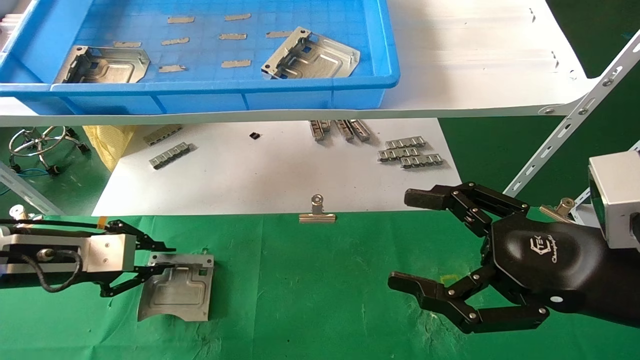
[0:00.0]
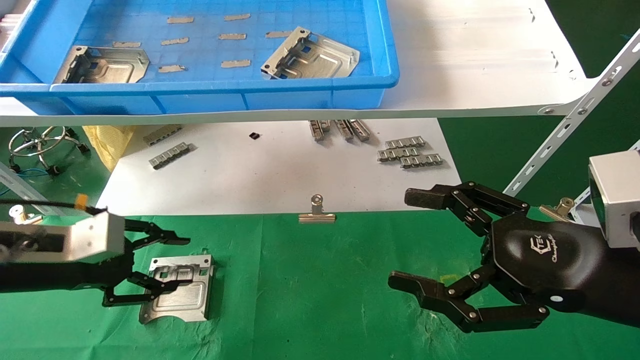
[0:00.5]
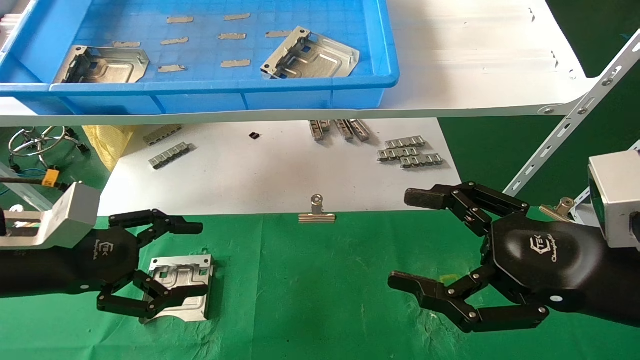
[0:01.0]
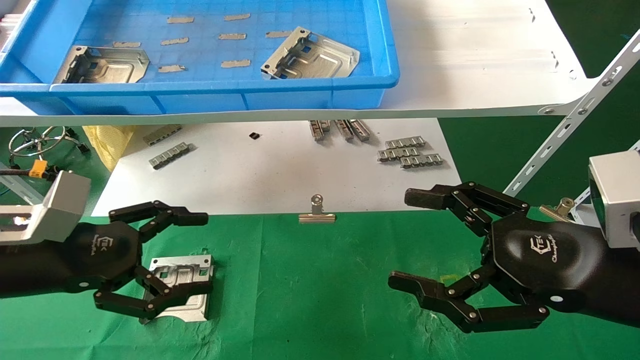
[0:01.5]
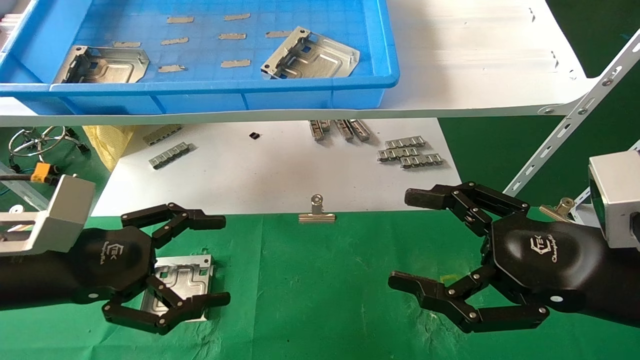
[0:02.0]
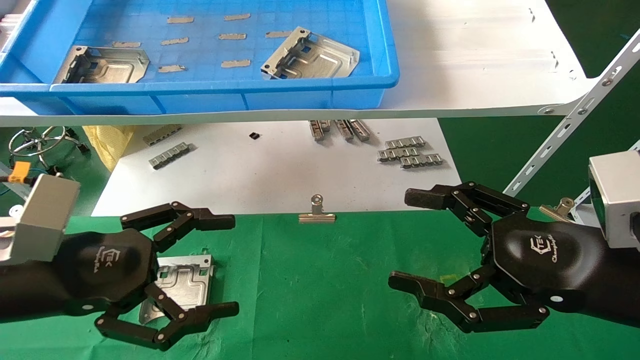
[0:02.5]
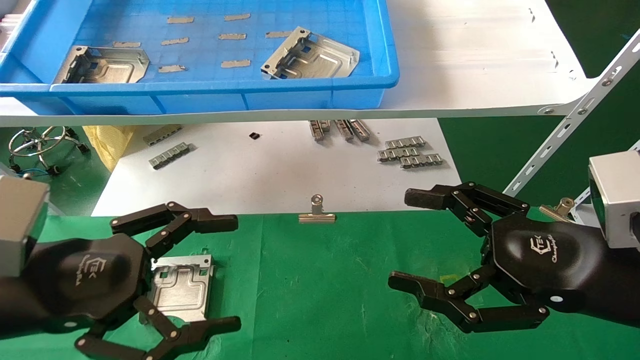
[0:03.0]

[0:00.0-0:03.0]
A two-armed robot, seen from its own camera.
Task of the whole recording: use the mechanical arm to pick up the parts and place them on the table.
0:00.0 to 0:01.5: The left gripper heads backward, covering roughly 5 cm, and opens.
0:01.5 to 0:03.0: The left gripper is displaced backward by some 5 cm.

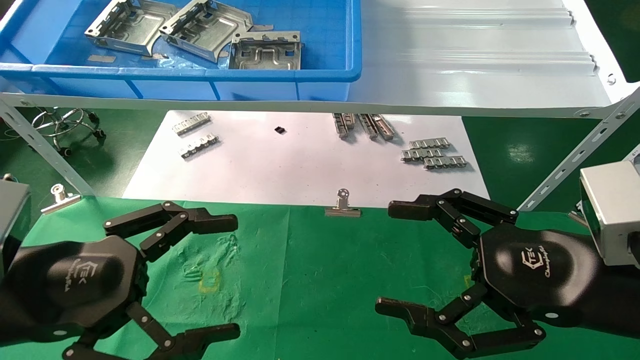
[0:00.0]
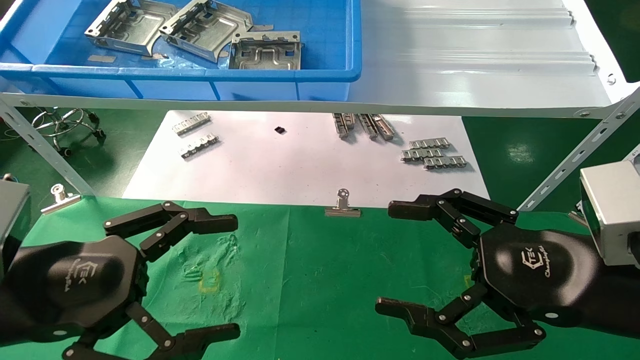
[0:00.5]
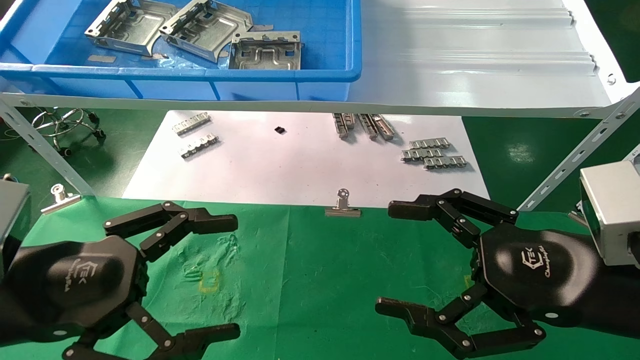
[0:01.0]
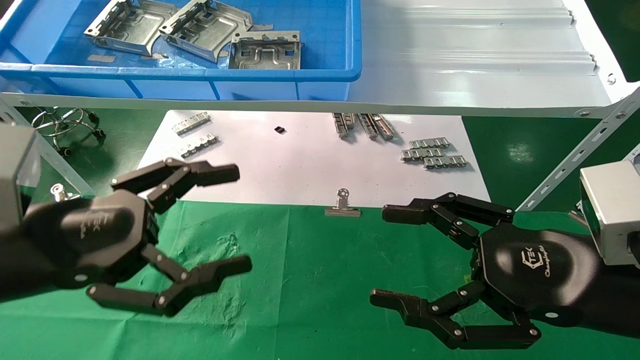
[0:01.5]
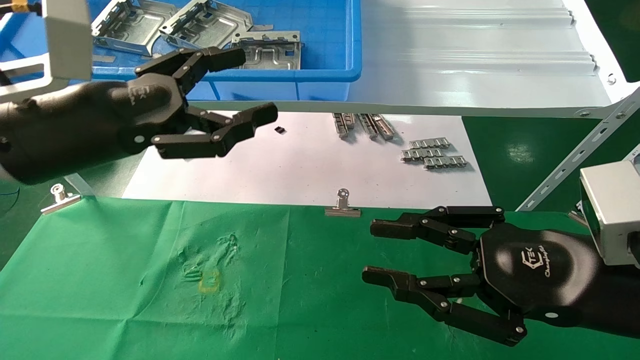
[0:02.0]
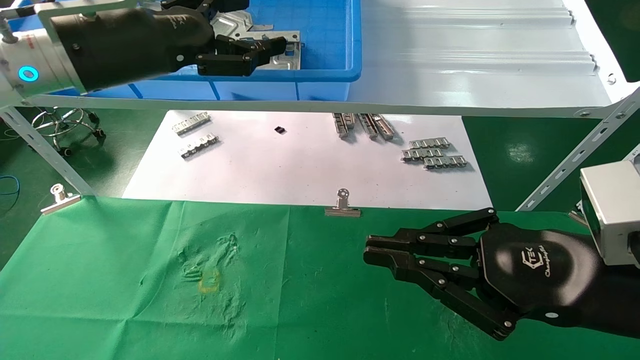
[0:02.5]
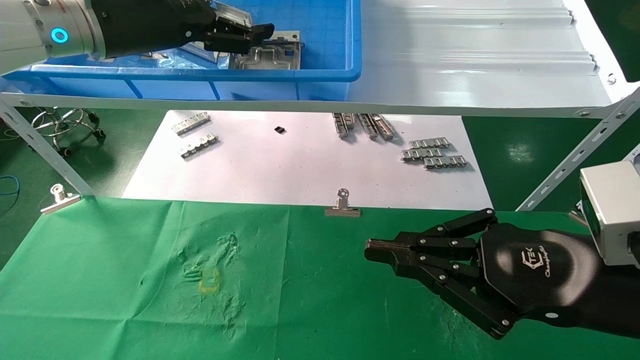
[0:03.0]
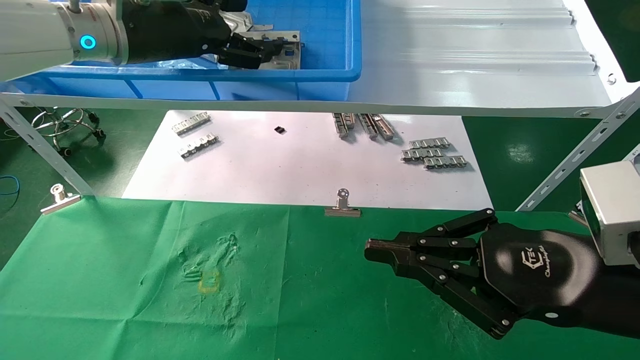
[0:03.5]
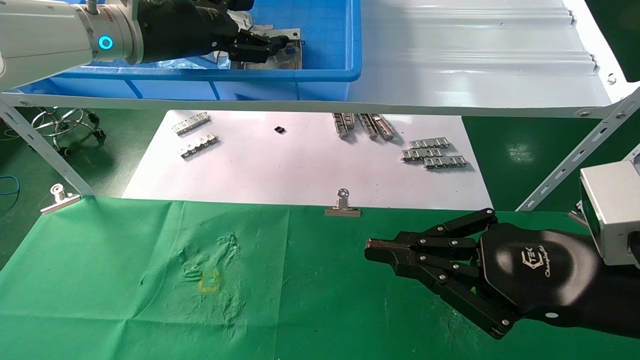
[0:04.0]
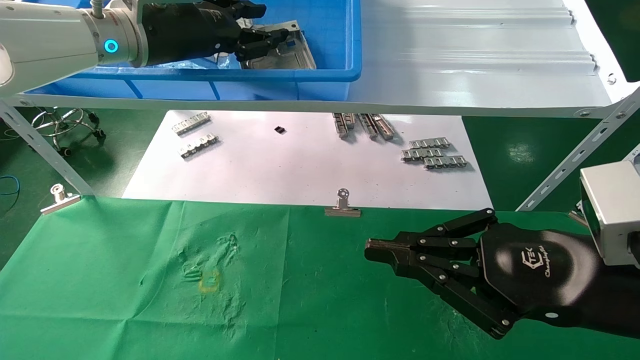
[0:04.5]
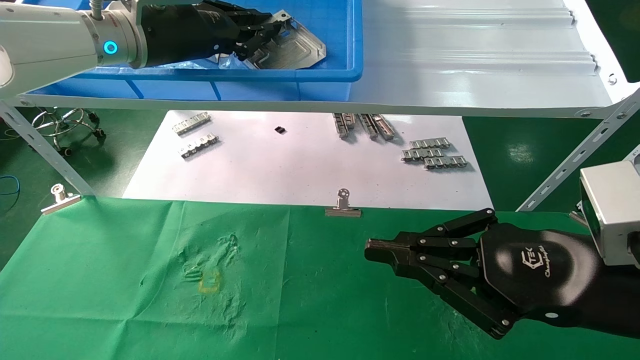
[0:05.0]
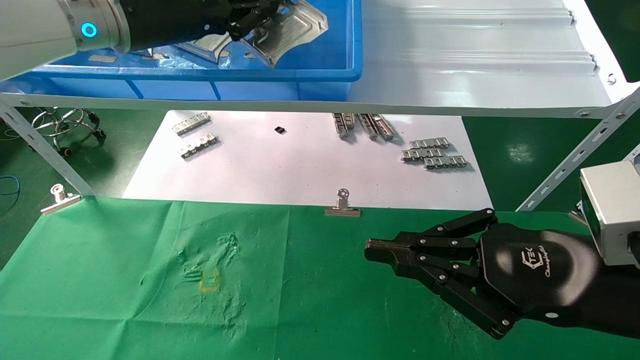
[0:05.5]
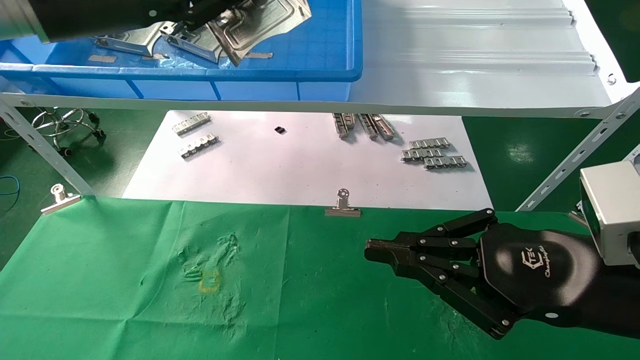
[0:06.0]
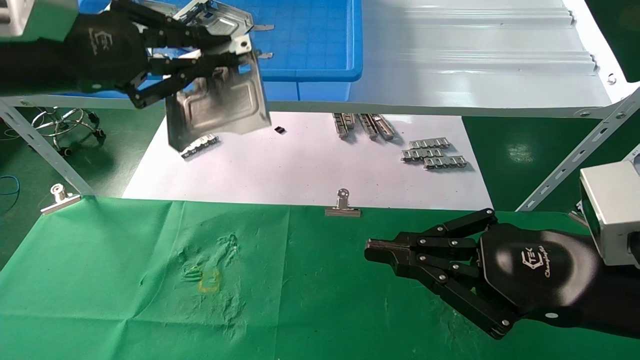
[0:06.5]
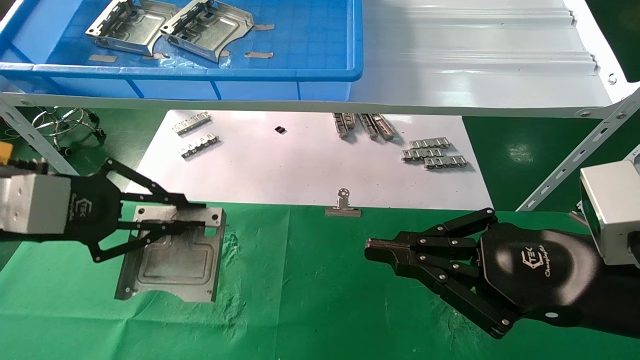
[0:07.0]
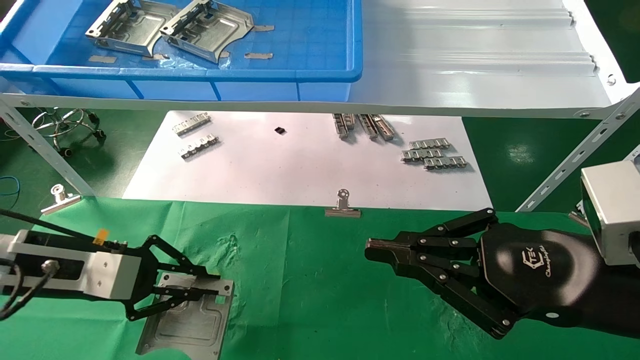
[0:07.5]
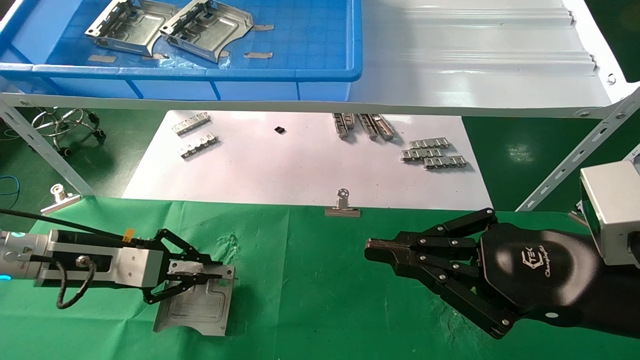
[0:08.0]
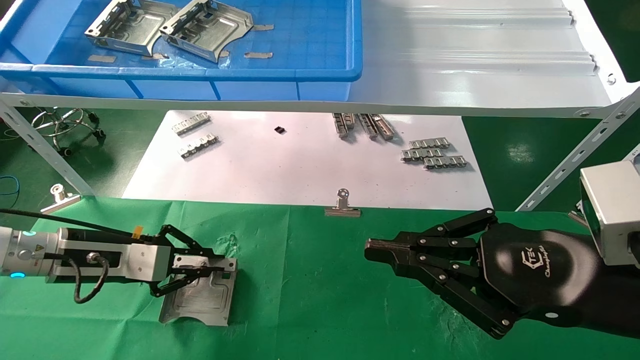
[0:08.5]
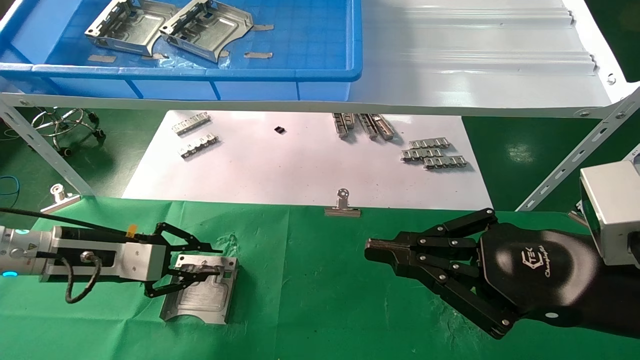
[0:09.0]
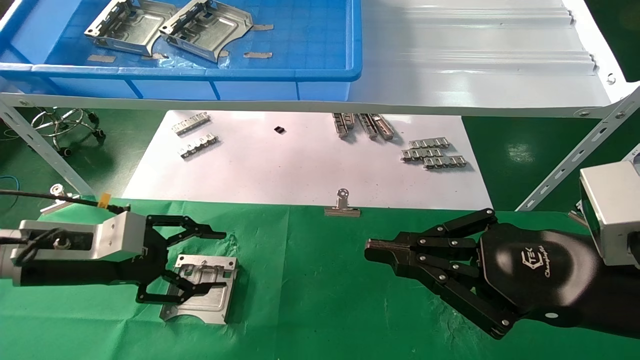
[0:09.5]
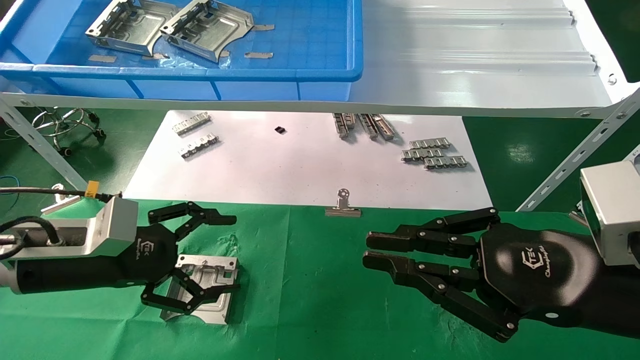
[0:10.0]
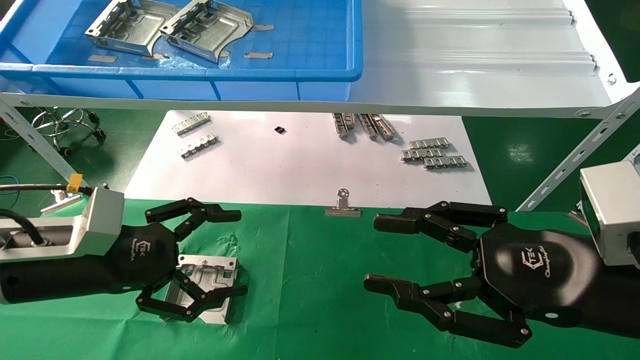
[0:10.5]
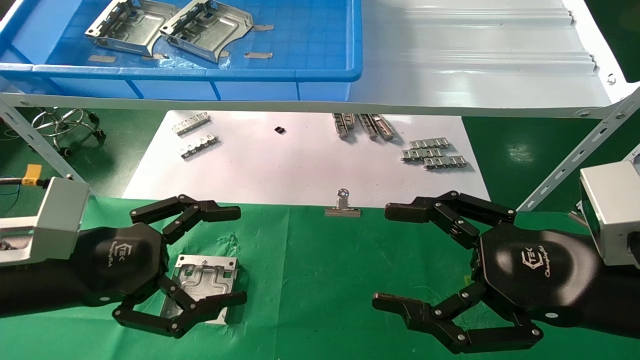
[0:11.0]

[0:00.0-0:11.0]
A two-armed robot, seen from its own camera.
Task of the whole recording: use the mechanical arm to pick up the parts and place them on the table.
Step, 0:02.0 to 0:05.0: Pick up the hard drive bracket from the feeding area.
Step, 0:05.5 to 0:08.5: Place the hard drive bracket into the box.
0:00.0 to 0:02.0: The left gripper goes about 15 cm upward and forward. Meanwhile the right gripper closes up.
0:02.0 to 0:03.5: The left gripper is displaced forward and upward by about 15 cm; the right gripper closes up.
0:03.5 to 0:05.5: The left gripper closes its fingers.
0:05.5 to 0:07.5: The left gripper goes roughly 30 cm downward and to the left.
0:07.5 to 0:09.0: The grippers make only small movements.
0:09.0 to 0:11.0: The right gripper opens up. Meanwhile the left gripper travels backward by some 10 cm, and opens its fingers.
